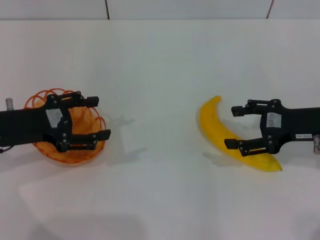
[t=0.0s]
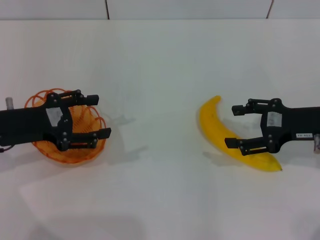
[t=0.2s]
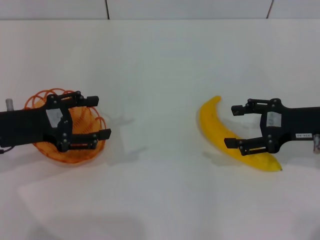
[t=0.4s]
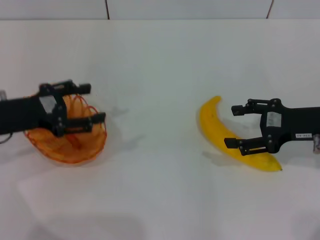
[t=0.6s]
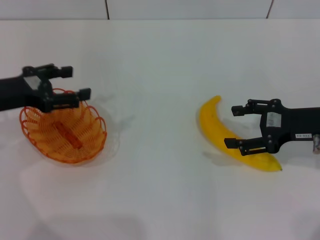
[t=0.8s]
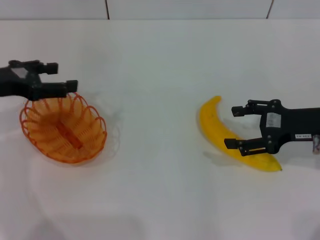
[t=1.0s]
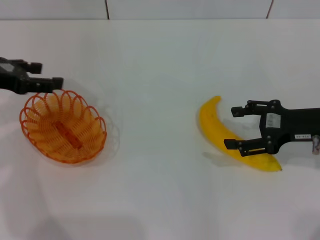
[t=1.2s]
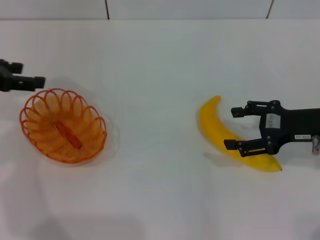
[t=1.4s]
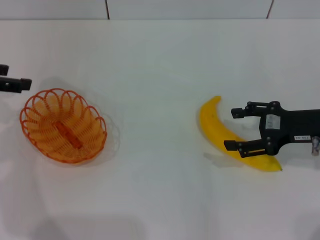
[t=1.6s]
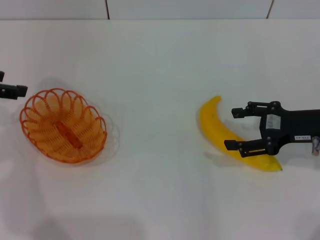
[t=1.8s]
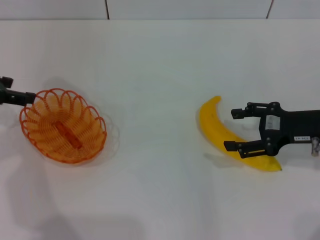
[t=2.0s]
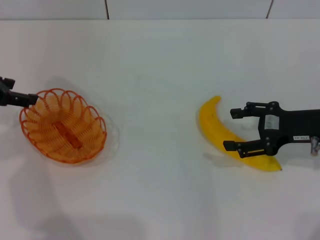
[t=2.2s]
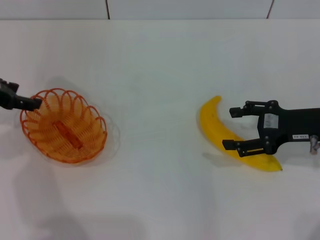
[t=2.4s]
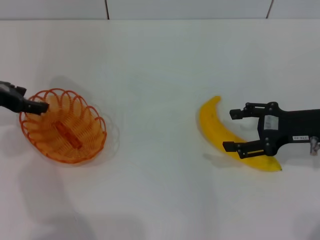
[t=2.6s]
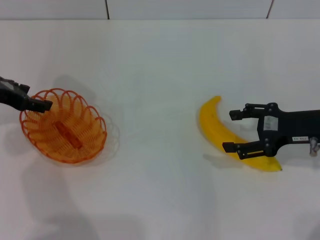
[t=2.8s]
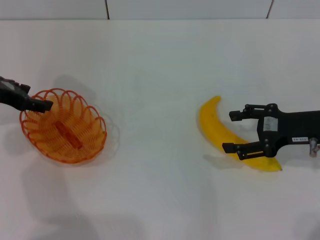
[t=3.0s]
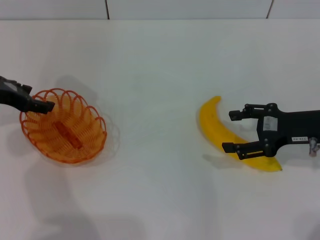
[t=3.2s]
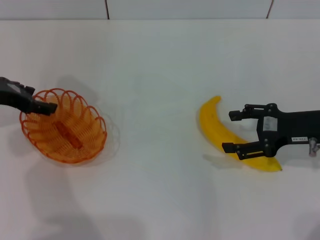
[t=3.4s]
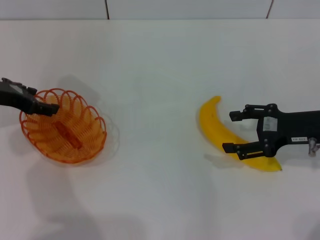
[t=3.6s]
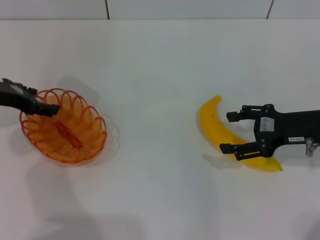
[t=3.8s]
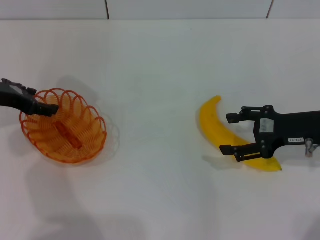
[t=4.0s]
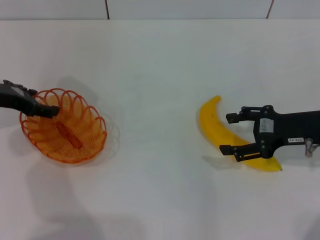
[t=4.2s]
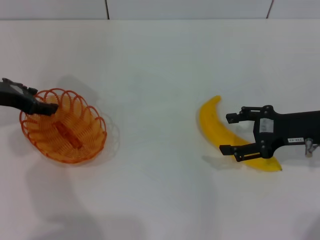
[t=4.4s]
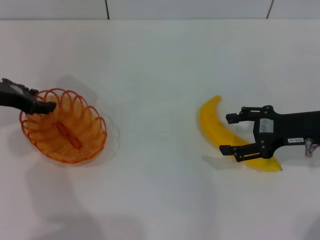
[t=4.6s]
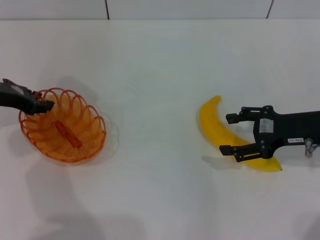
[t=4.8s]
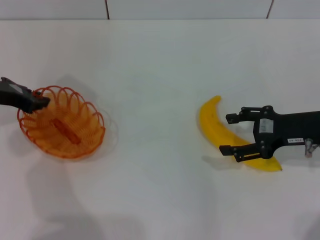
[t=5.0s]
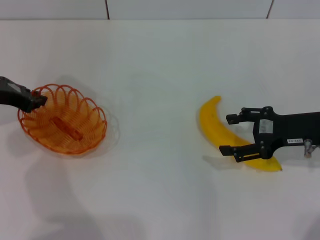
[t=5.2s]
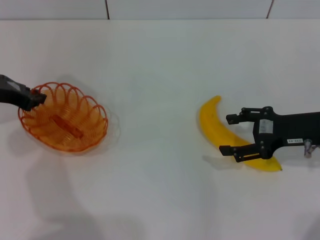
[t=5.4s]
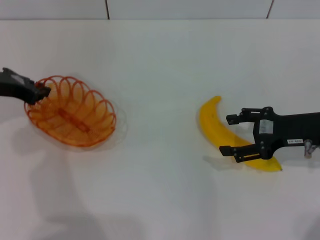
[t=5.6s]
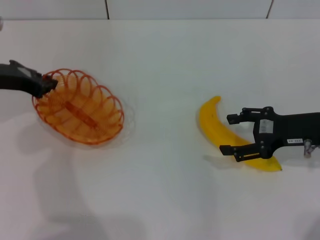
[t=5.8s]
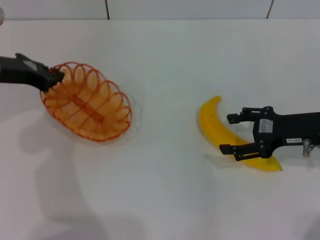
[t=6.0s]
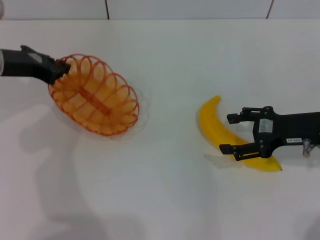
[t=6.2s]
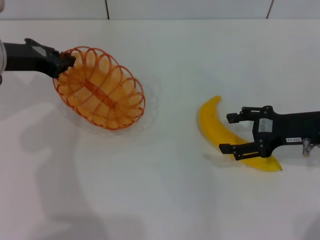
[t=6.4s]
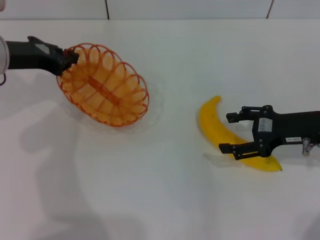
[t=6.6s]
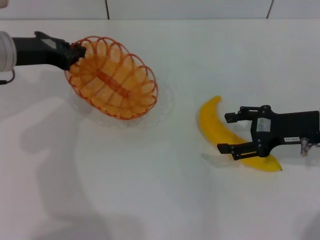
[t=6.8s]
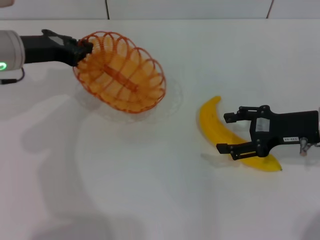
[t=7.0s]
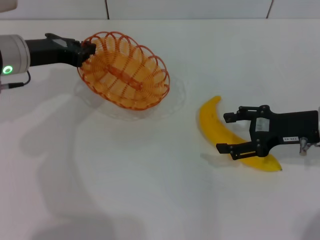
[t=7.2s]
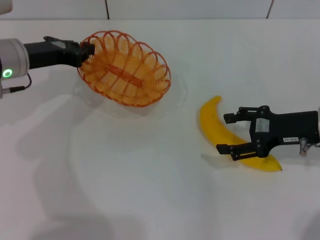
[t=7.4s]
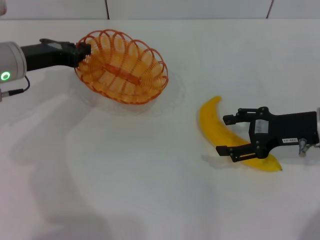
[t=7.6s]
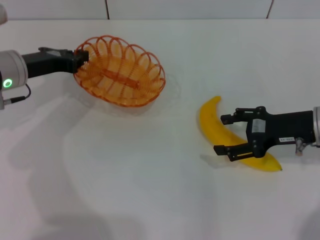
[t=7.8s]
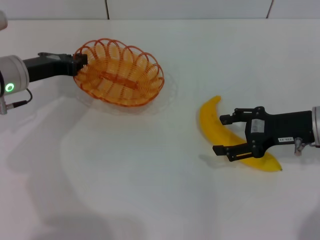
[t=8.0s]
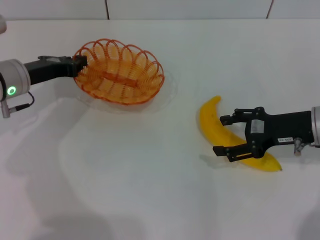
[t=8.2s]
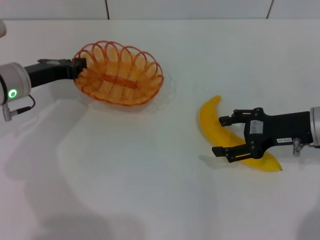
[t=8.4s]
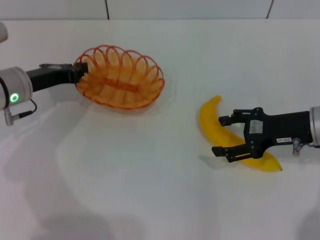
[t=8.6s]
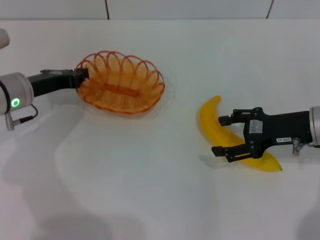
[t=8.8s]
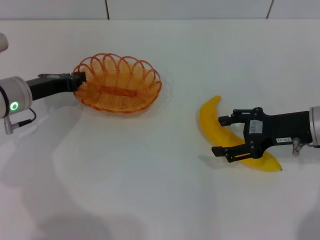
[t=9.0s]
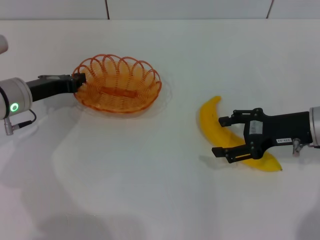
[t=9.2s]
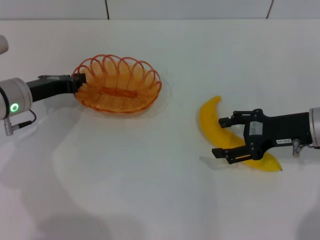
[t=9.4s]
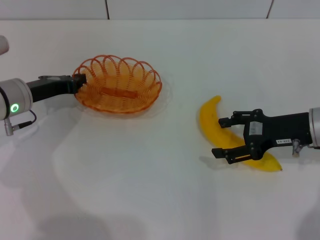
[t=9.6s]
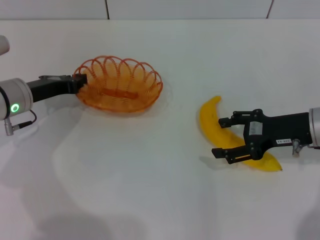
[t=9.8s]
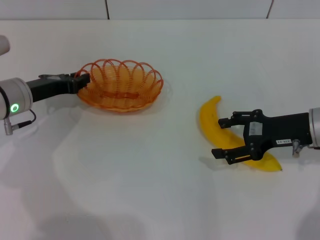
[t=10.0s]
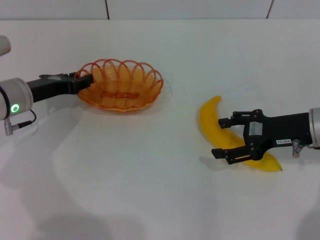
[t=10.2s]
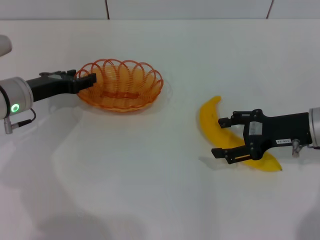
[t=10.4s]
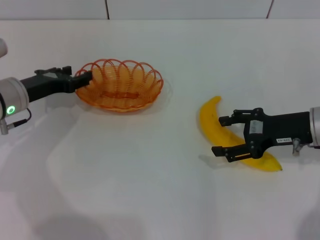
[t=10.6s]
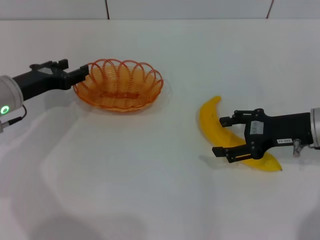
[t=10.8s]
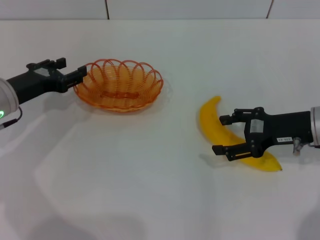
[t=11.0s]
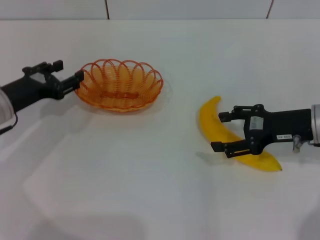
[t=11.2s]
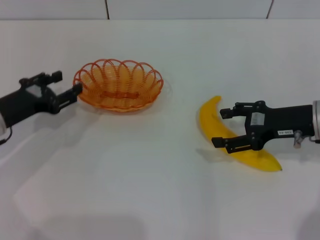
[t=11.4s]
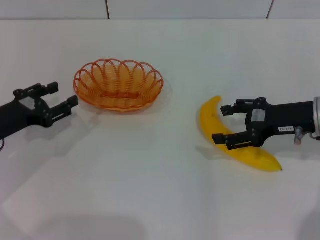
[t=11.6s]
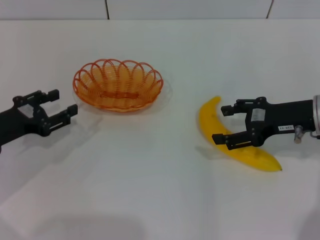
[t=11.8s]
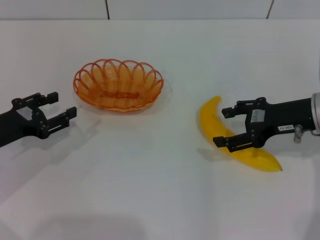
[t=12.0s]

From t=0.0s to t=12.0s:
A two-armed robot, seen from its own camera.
Step, from t=0.0s to t=6.0s: Pick up the basket with the left gripper.
Step, from t=6.2s to t=11.2s: Place the basket in the center of view with the left gripper.
From t=0.0s to t=1.6s: The left gripper is displaced upward and to the left by some 10 cm.
From t=1.6s to t=3.0s: The left gripper changes place by about 5 cm.
From t=3.0s to t=4.4s: The grippers move only a little.
From t=4.4s to t=6.0s: The left gripper closes.
From t=7.6s to t=9.0s: The left gripper heads downward, covering approximately 5 cm.
From t=9.0s to t=10.4s: The left gripper opens its fingers.
From t=10.4s to t=12.0s: The left gripper goes approximately 10 cm backward and to the left.

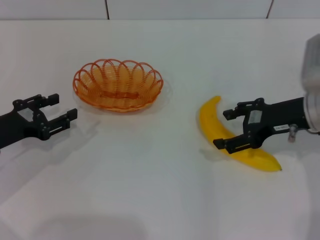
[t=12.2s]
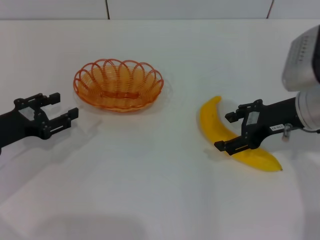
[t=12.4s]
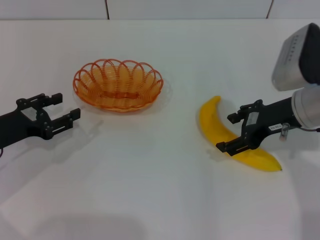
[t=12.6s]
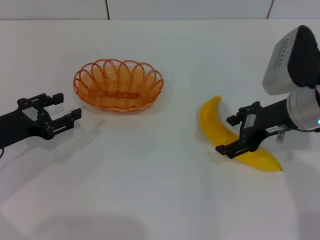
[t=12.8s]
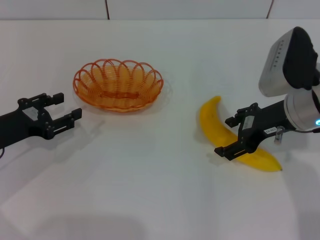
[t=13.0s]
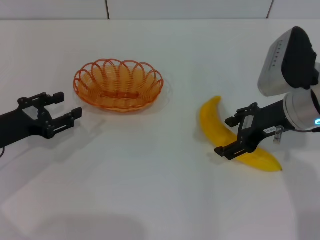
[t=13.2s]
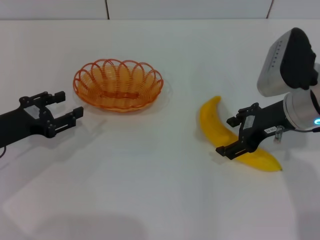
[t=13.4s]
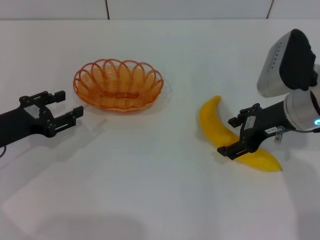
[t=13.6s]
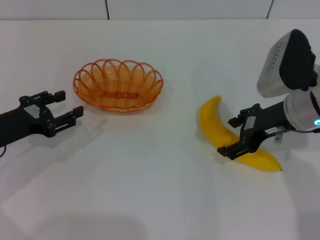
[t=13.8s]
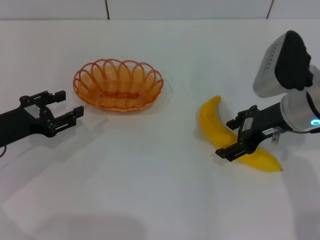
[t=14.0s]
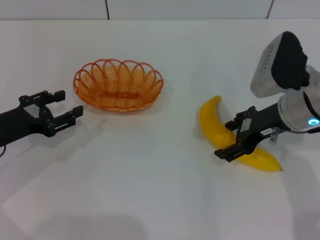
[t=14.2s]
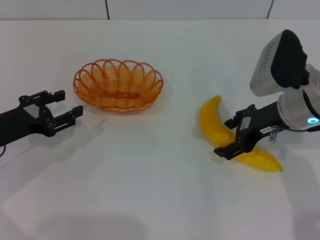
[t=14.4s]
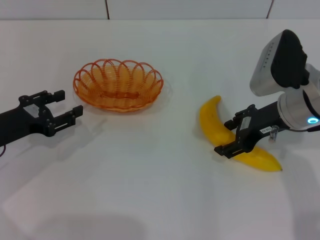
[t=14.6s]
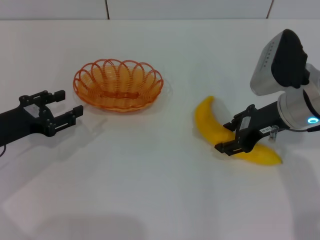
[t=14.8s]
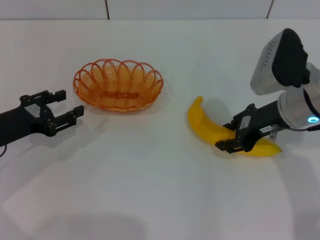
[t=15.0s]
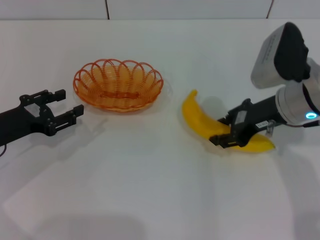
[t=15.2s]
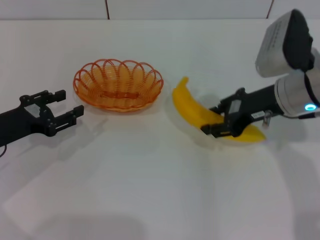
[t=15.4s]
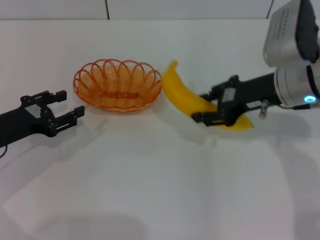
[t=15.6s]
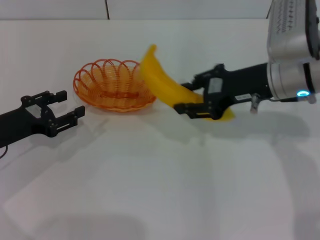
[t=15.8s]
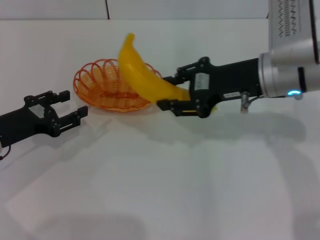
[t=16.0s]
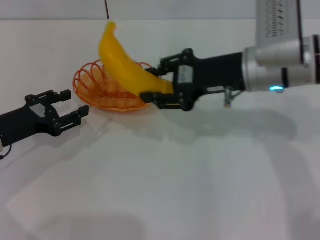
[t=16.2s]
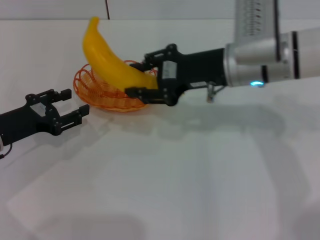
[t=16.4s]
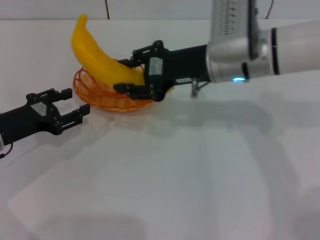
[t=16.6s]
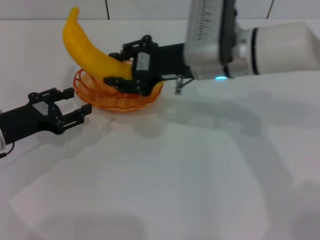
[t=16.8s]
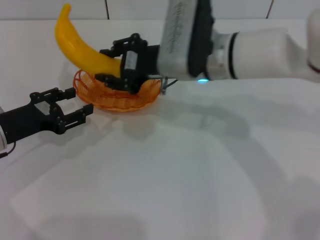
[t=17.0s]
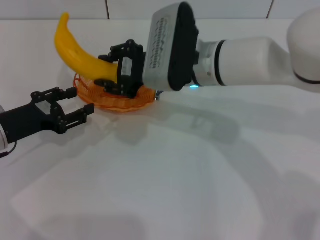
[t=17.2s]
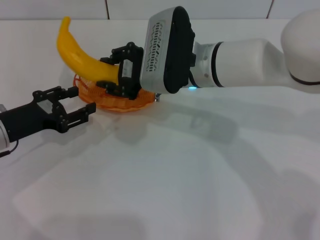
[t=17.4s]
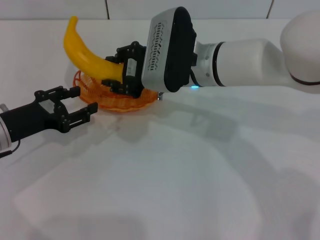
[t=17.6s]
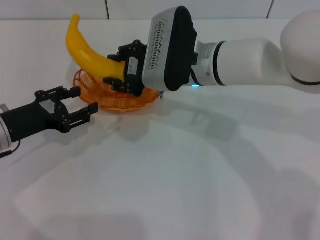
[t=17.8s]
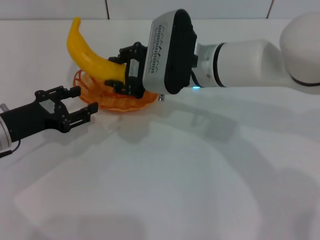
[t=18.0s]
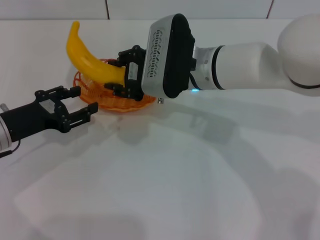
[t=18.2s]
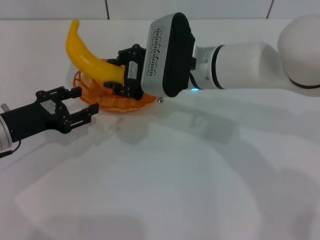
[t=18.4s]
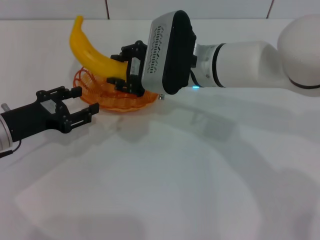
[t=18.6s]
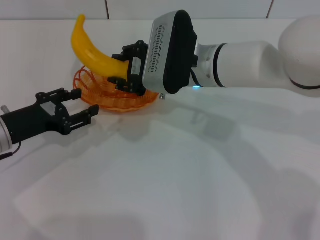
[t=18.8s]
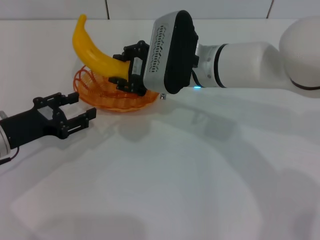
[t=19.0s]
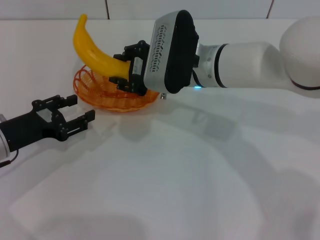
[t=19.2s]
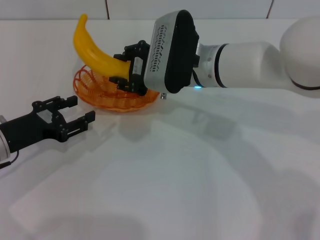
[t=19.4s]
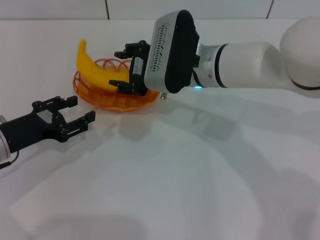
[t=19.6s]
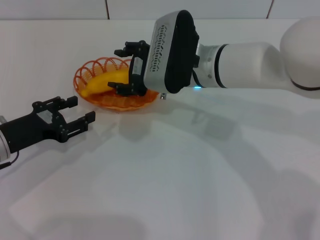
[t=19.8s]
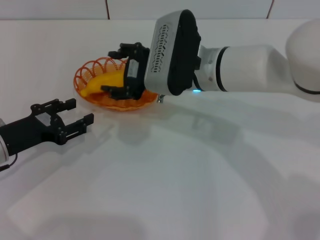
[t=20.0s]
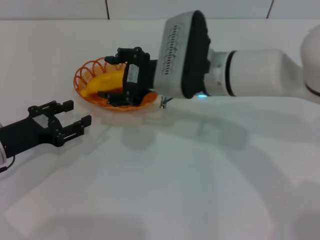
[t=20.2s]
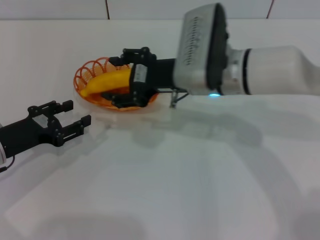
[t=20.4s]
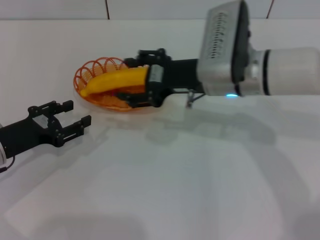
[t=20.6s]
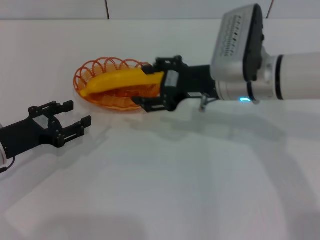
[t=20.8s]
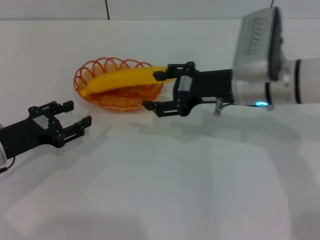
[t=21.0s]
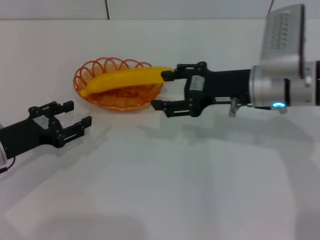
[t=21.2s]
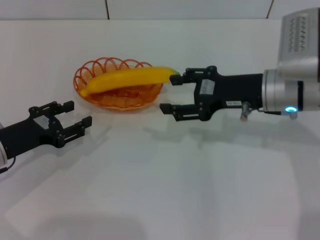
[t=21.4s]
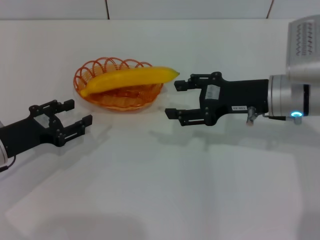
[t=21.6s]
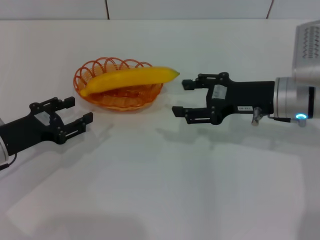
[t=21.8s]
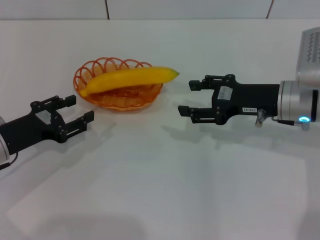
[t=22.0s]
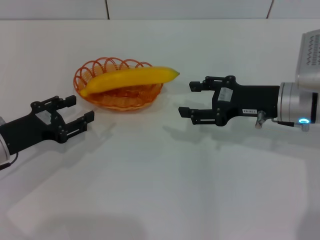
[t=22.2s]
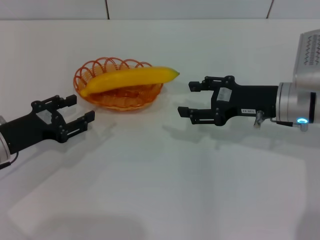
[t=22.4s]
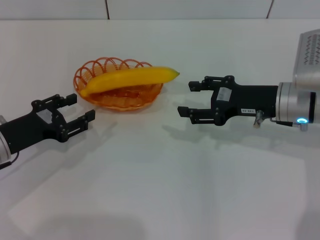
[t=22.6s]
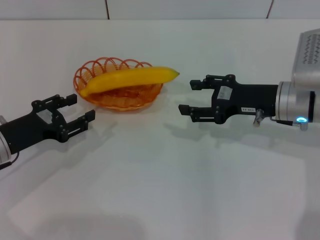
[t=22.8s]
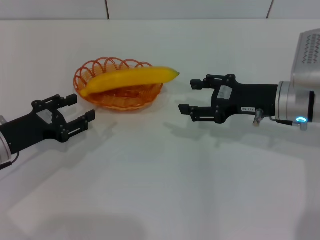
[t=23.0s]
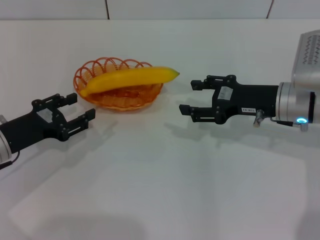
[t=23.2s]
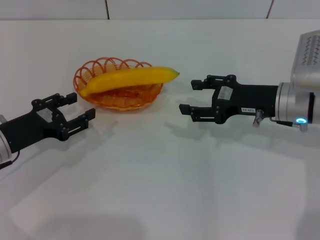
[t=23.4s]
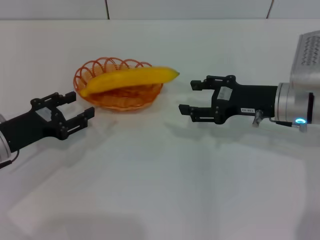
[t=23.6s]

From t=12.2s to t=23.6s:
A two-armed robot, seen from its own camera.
Step, from t=12.2s to t=15.4s: Pick up the banana with the right gripper.
Step, from t=15.6s to t=21.0s: Place the banana into the basket with the right gripper.
From t=12.2s to t=13.6s: The grippers move only a little.
From t=13.6s to t=15.0s: The right gripper closes.
From t=15.0s to t=16.4s: The right gripper shifts roughly 5 cm to the left.
From t=16.4s to t=17.8s: The right gripper goes about 5 cm to the left.
From t=17.8s to t=19.4s: The grippers make only small movements.
From t=19.4s to t=20.8s: The right gripper moves to the right, some 5 cm, and opens.
From t=20.8s to t=22.2s: The right gripper heads to the right, covering about 10 cm.
From t=22.2s to t=23.6s: Both grippers stay about where they are.
